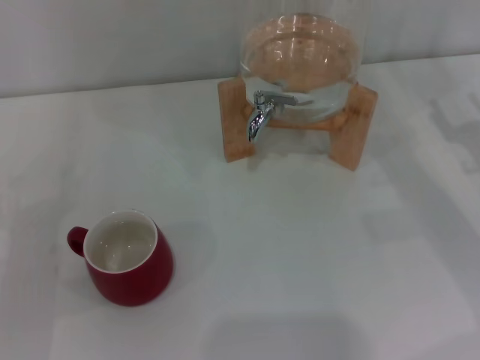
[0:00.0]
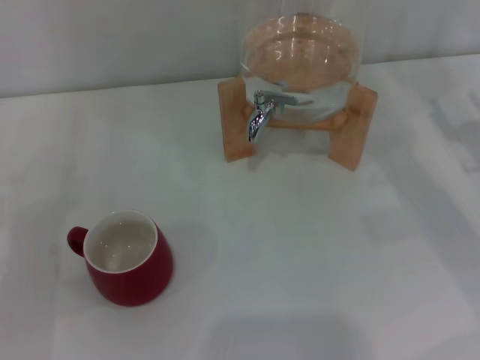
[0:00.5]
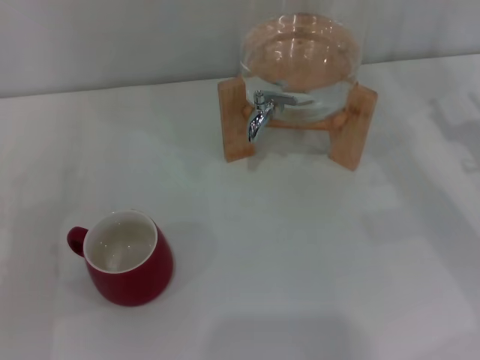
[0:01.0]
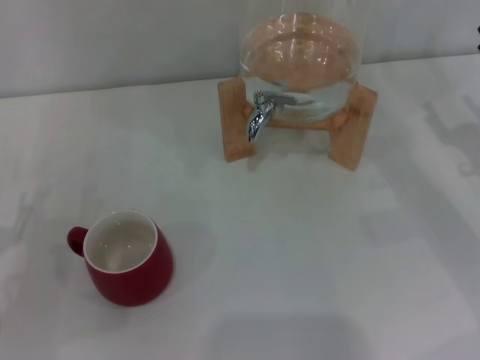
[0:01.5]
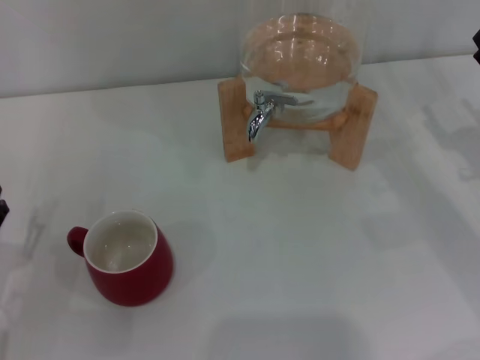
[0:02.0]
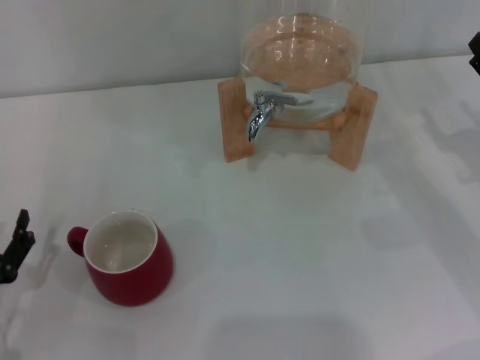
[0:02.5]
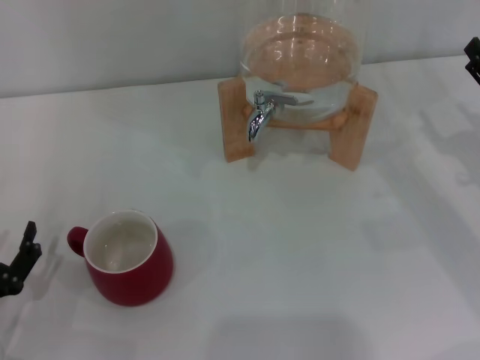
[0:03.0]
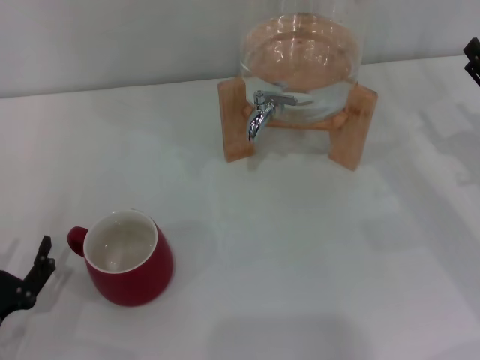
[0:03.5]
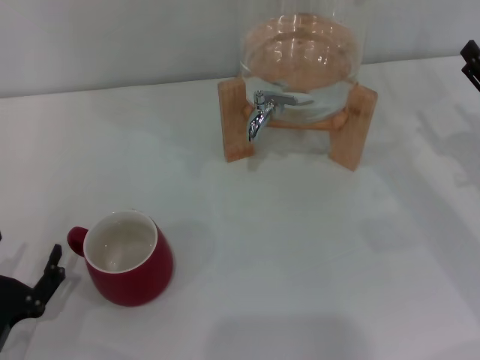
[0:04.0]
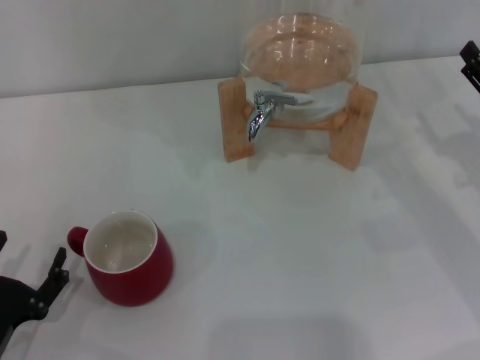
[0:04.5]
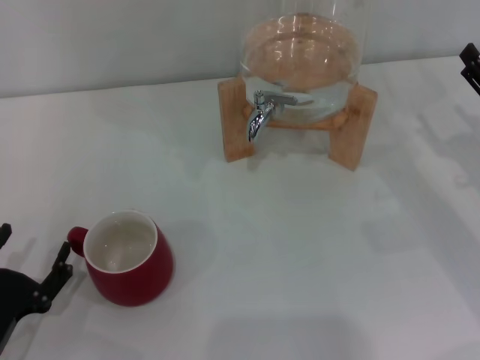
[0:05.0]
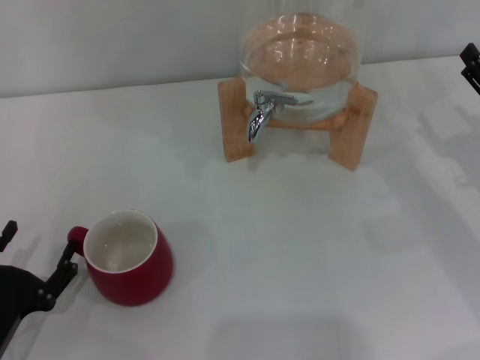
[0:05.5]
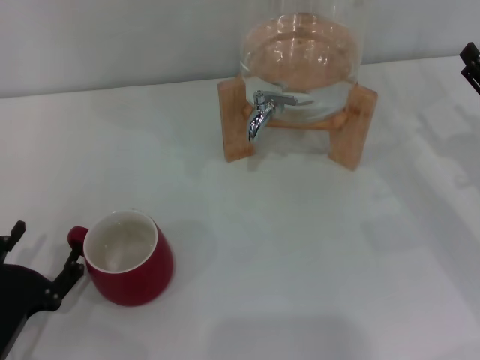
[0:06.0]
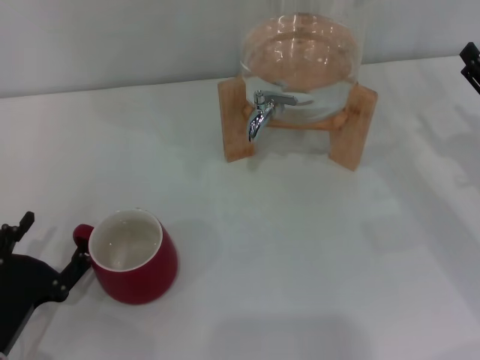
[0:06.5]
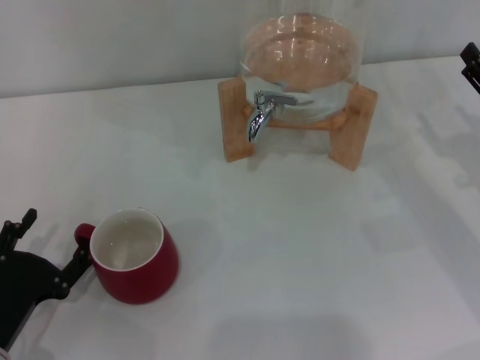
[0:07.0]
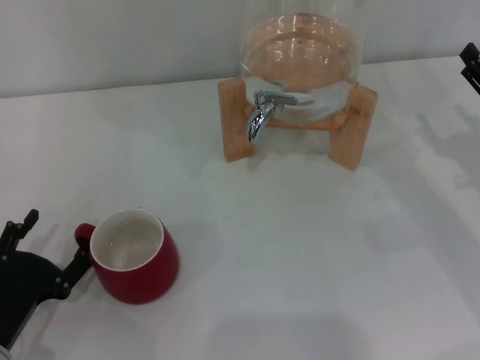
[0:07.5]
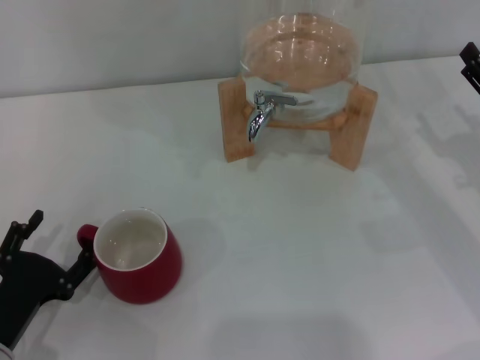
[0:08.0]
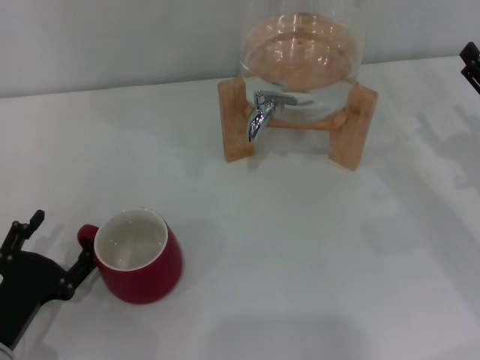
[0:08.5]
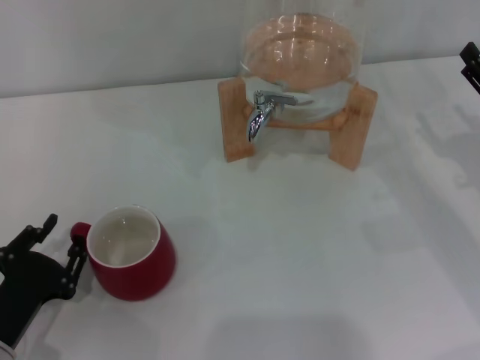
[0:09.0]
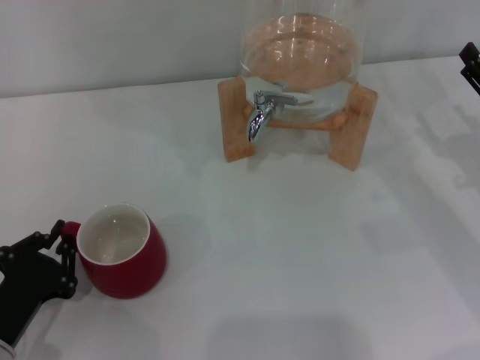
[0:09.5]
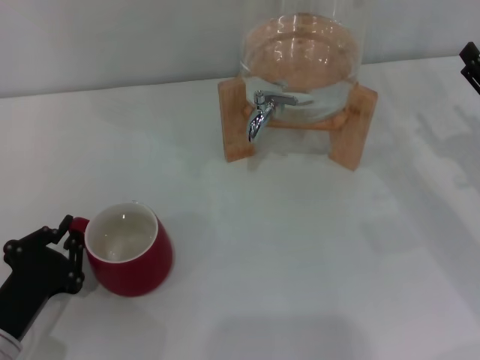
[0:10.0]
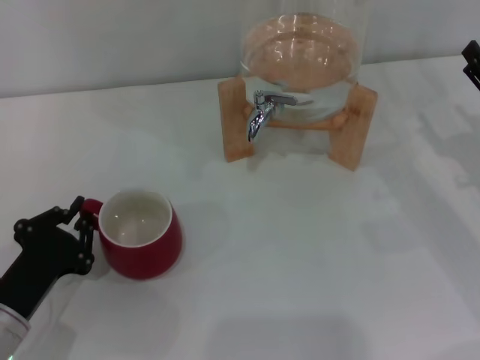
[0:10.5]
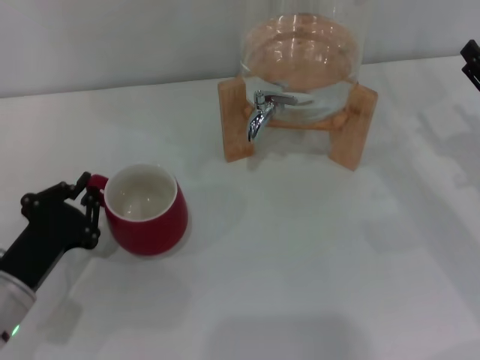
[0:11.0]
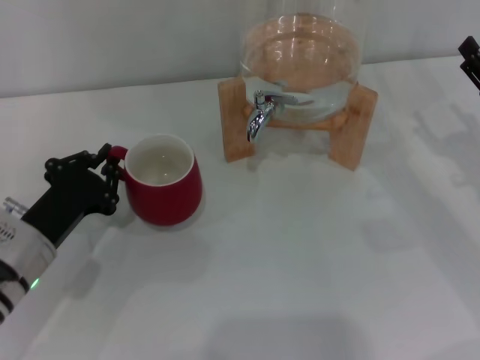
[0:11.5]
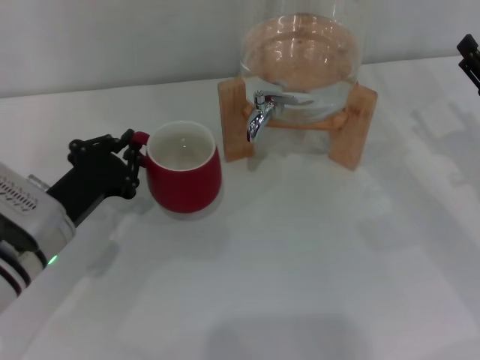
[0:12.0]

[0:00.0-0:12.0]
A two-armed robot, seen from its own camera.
Task of the whole recording: the left gripper pick up the red cup and place it horizontally under the faucet, the right gripper turn on the faucet to fill the cup, and then turn off the faucet.
0:02.0 to 0:04.0: The left gripper changes place by about 5 cm.
0:04.0 to 0:08.0: The grippers stay close to where they were, moving slightly.
0:08.0 to 0:10.0: The left gripper closes its fingers.
0:10.0 to 0:12.0: The left gripper heads forward and to the right, covering approximately 10 cm.

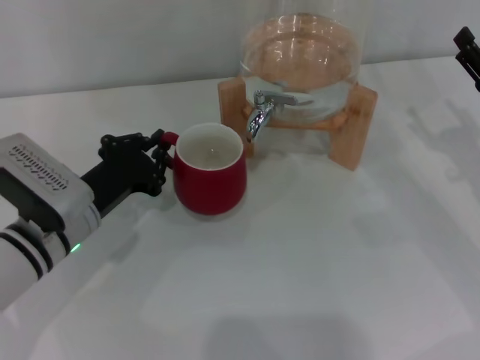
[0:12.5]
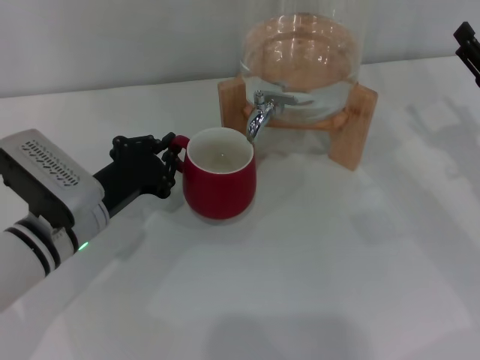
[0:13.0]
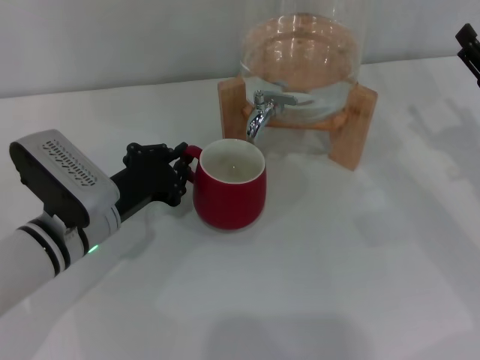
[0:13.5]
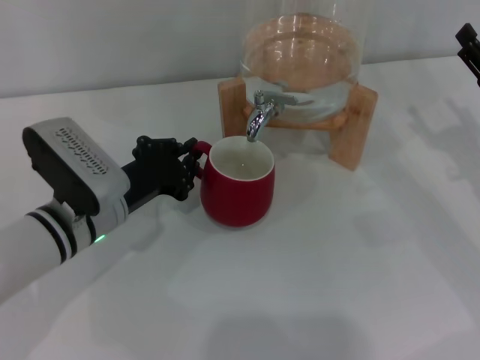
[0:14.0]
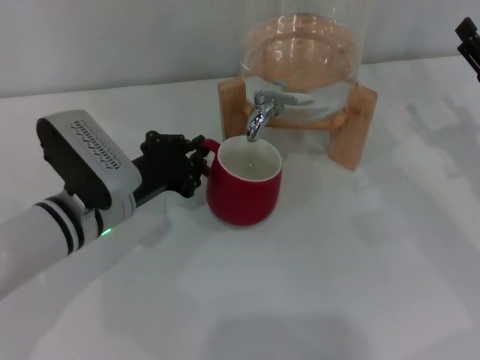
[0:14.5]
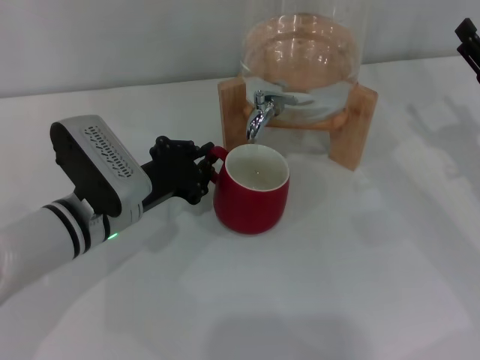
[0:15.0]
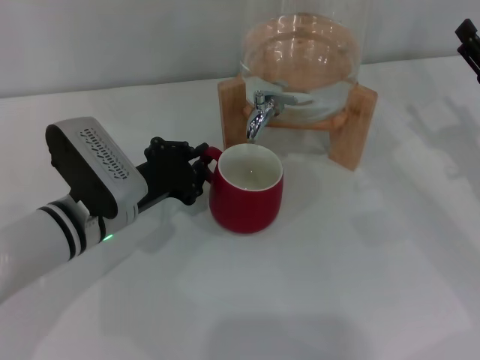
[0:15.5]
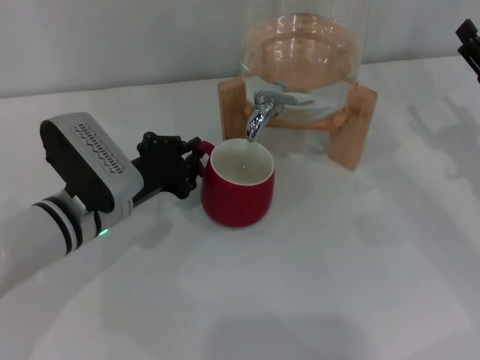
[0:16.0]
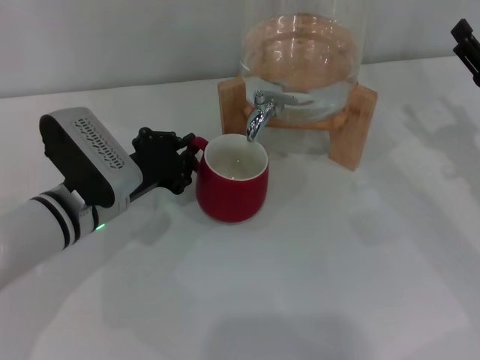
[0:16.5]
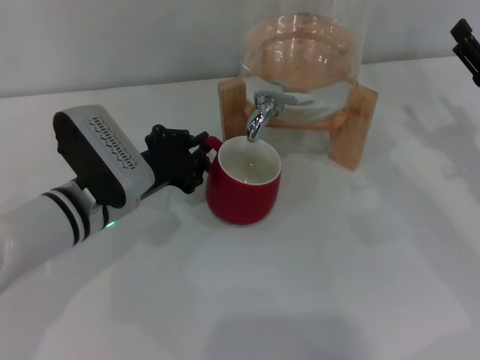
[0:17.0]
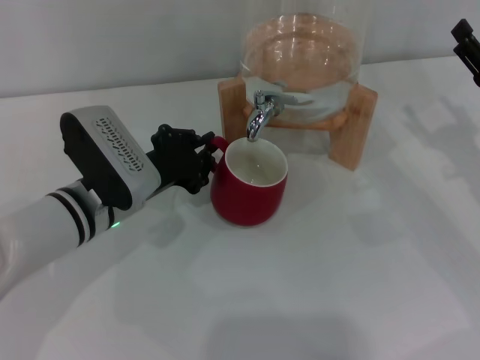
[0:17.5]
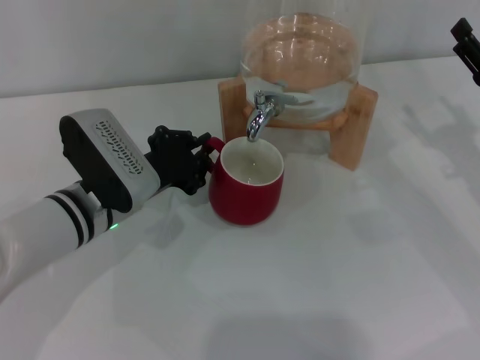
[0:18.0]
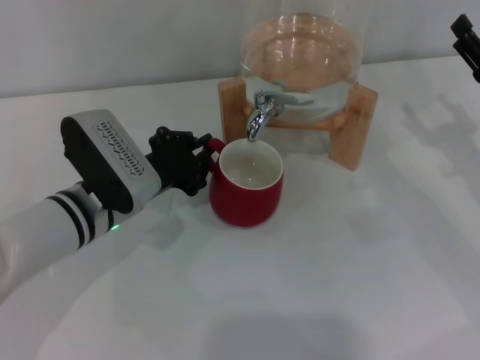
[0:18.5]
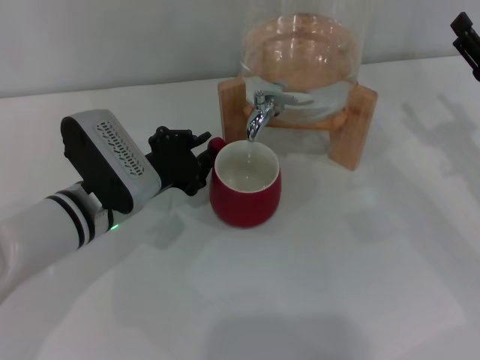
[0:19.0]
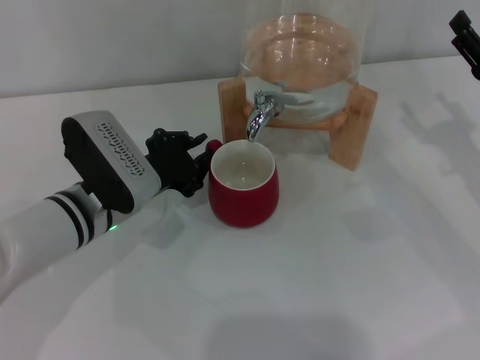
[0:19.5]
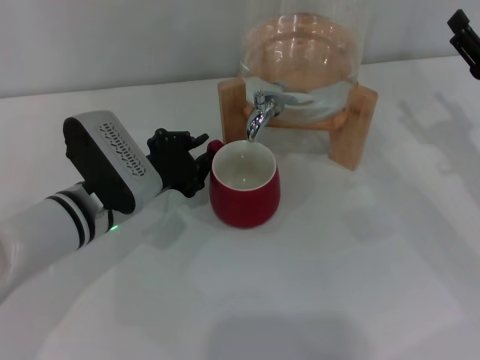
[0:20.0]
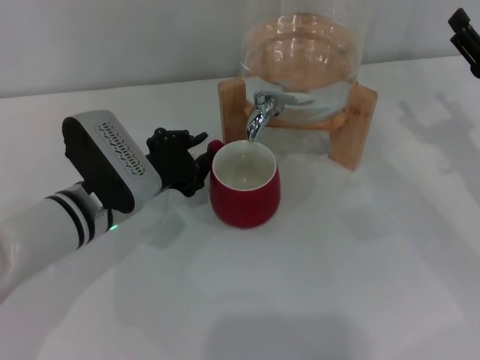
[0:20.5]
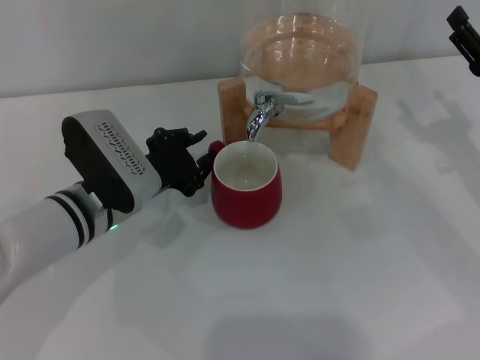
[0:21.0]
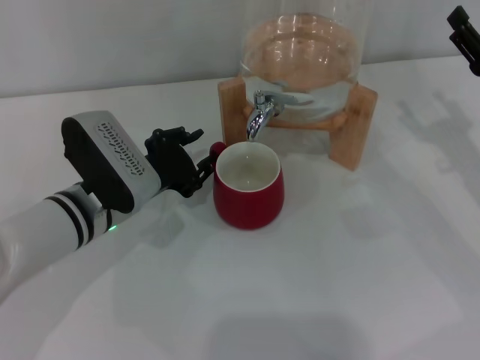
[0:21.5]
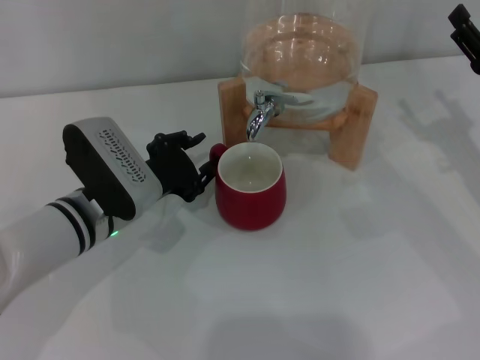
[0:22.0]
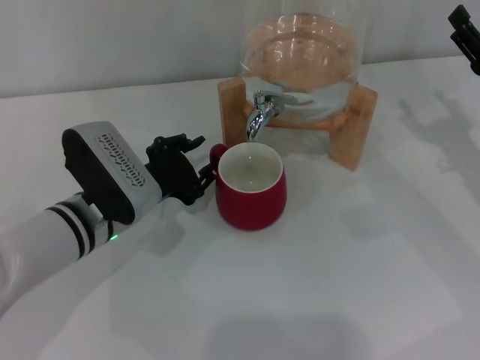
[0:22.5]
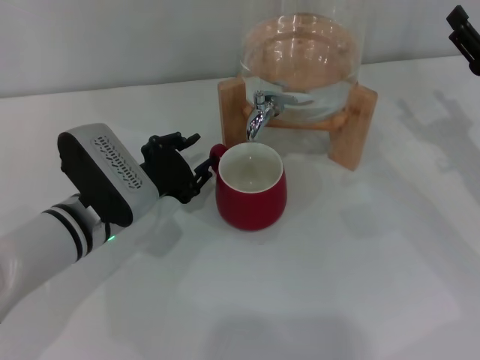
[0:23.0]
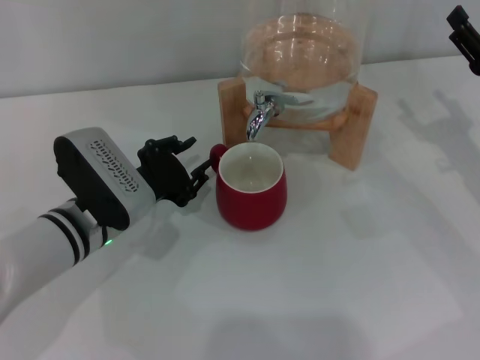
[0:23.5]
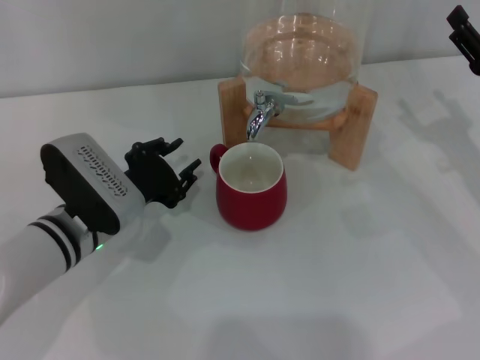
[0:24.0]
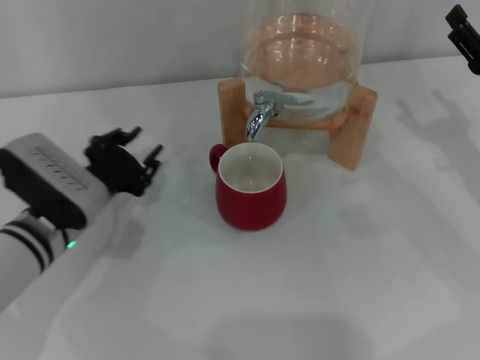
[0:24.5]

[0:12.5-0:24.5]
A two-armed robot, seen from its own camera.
Task of the whole recording: the left gripper pick up the red cup and place it horizontally under the faucet, the right gripper turn on the faucet to fill the cup, and then turn off the faucet.
Step, 0:12.5 to 0:22.5: Move the cup beneath the water dispenser nozzle with the left gripper.
0:12.5 to 0:18.5: There are only small adjustments of the grippers.
0:18.5 to 0:22.5: The two grippers keep their place.
0:22.5 to 0:24.5: The grippers make only small movements.

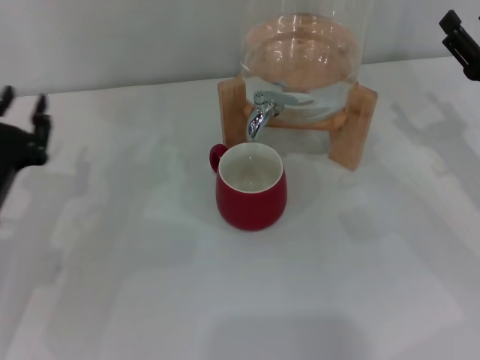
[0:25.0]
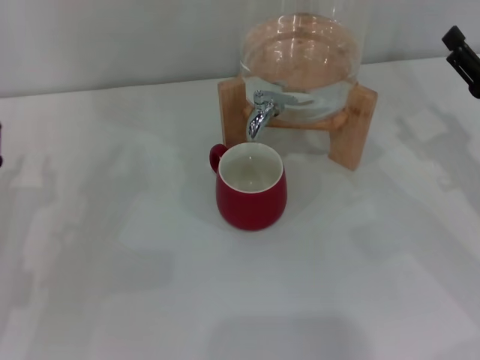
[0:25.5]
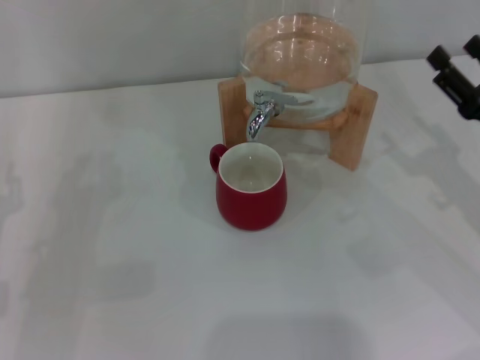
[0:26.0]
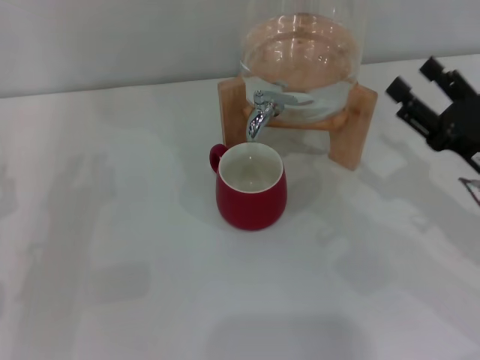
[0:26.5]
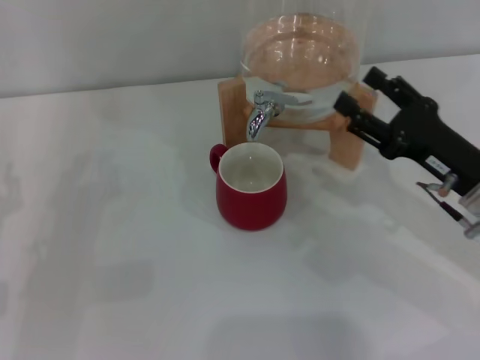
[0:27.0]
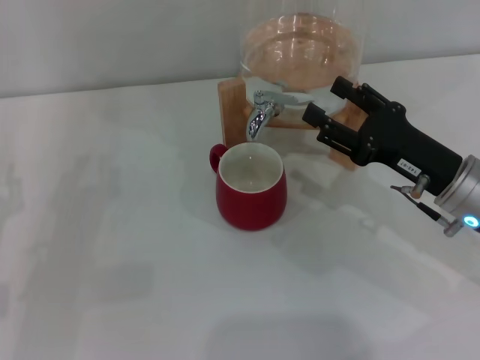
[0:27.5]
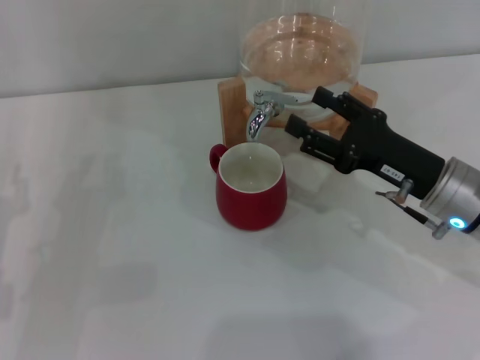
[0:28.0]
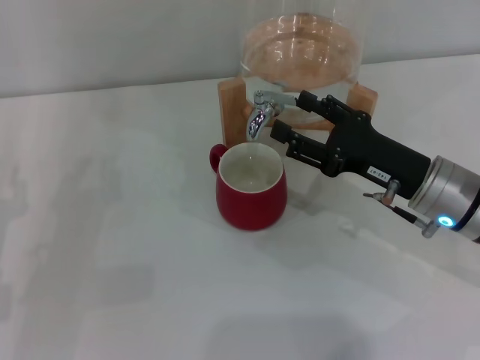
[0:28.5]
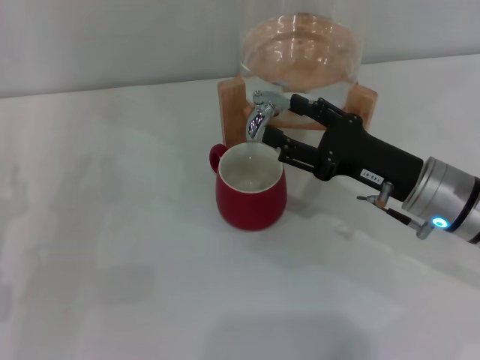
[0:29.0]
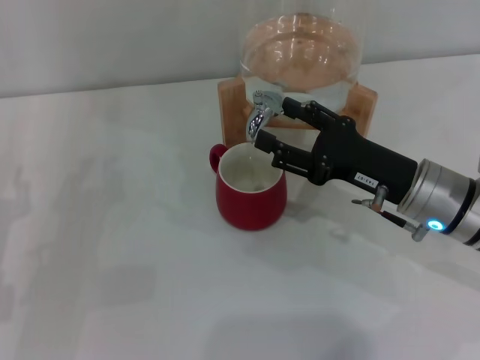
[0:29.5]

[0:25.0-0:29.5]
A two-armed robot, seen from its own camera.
Task of the whole recording: the left gripper pick up the red cup and place it horizontally under the faucet, the right gripper turn on the faucet to fill the cup, and then turn off the faucet.
0:25.0 to 0:27.0: The right gripper moves to the left, some 5 cm. The left gripper ends up about 5 cm from where it was.
0:27.0 to 0:29.5: The right gripper moves to the left, some 5 cm.
